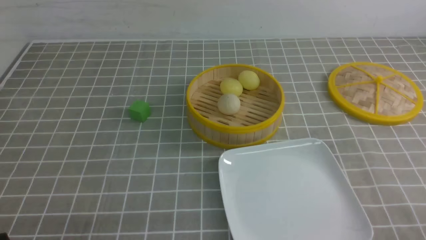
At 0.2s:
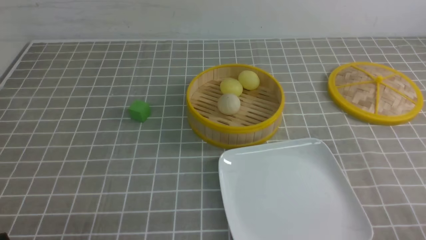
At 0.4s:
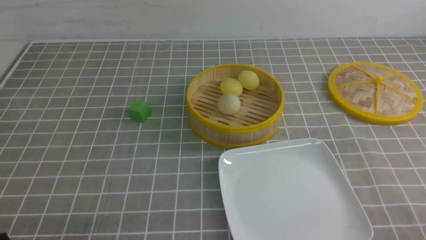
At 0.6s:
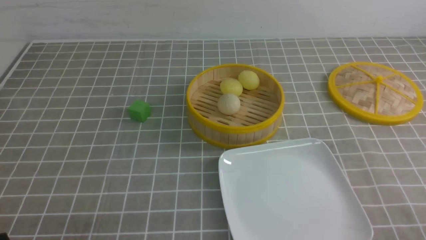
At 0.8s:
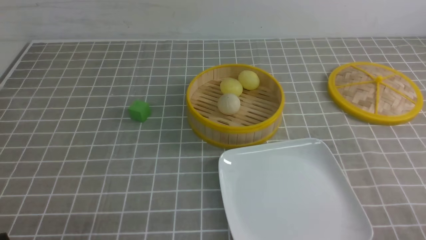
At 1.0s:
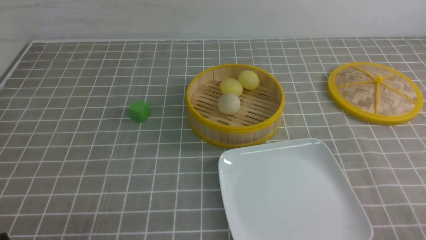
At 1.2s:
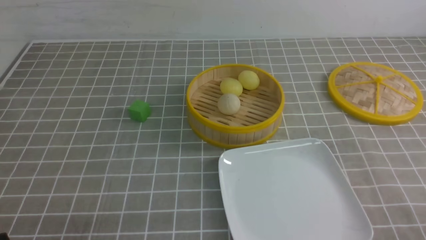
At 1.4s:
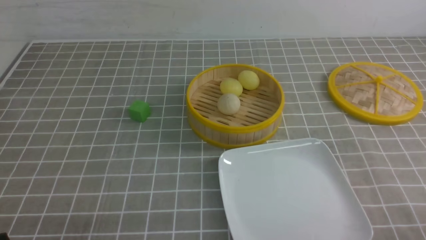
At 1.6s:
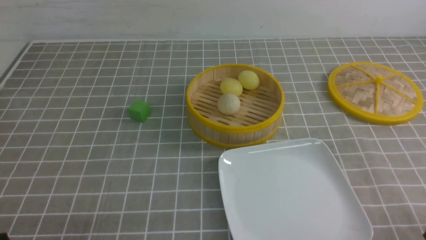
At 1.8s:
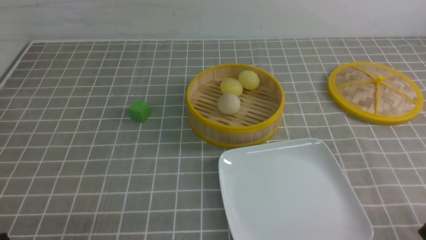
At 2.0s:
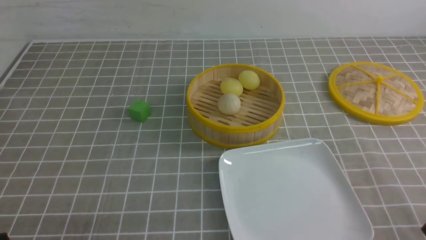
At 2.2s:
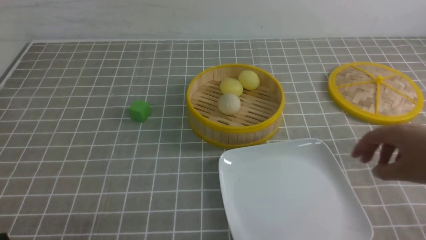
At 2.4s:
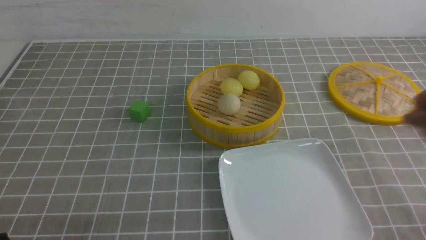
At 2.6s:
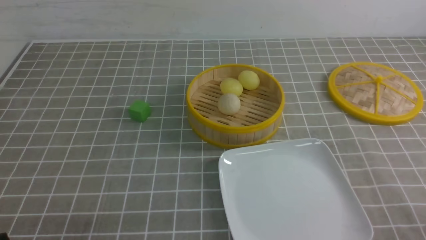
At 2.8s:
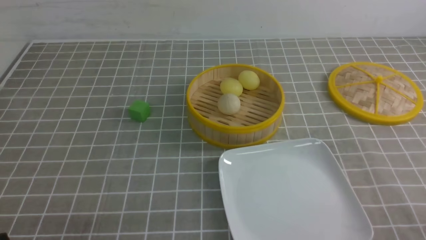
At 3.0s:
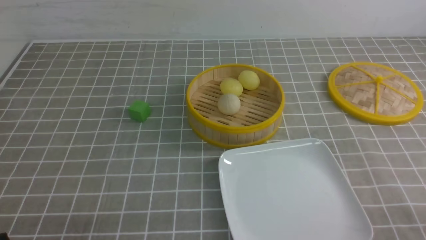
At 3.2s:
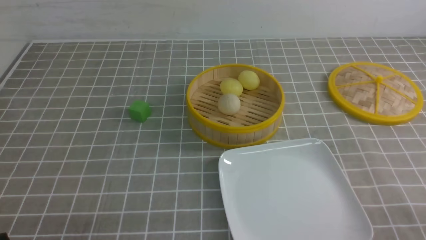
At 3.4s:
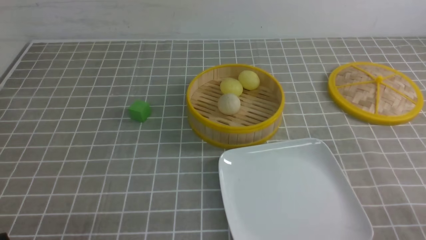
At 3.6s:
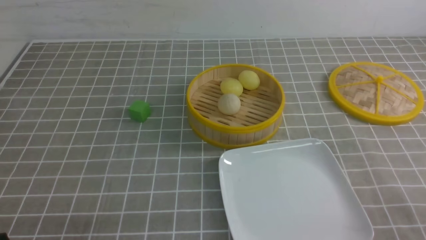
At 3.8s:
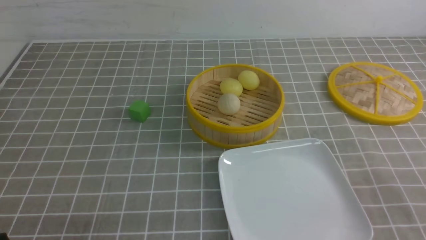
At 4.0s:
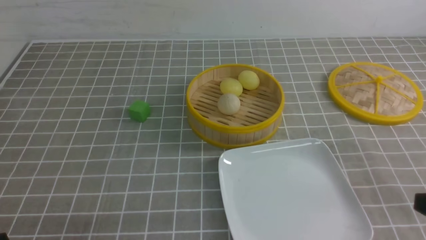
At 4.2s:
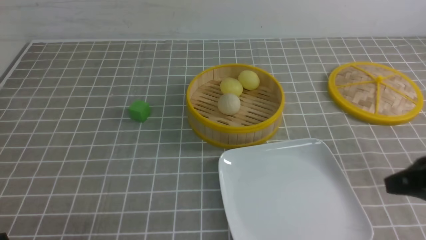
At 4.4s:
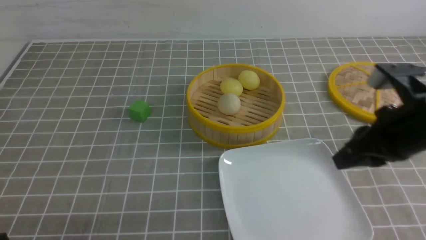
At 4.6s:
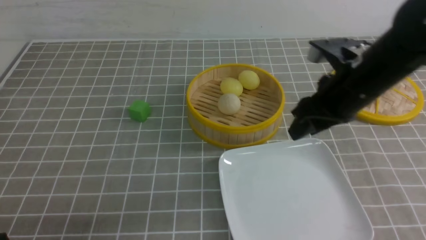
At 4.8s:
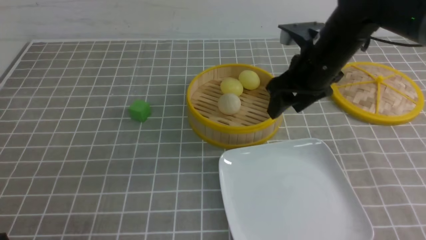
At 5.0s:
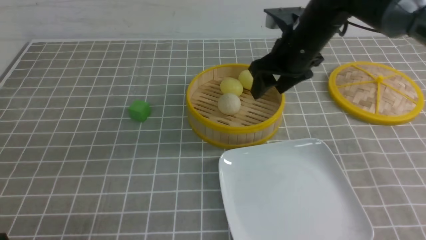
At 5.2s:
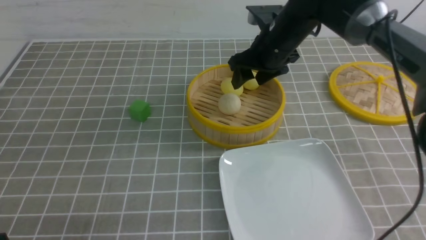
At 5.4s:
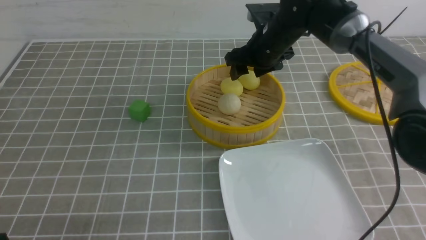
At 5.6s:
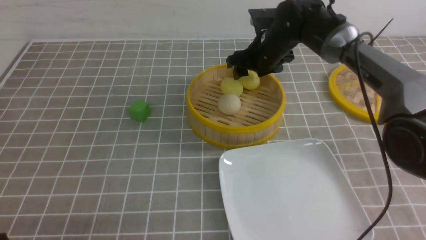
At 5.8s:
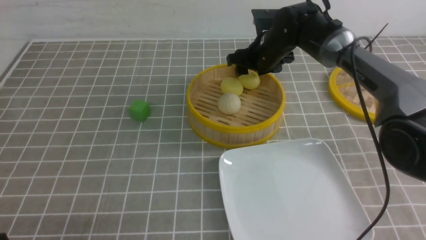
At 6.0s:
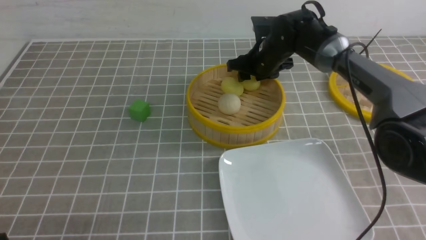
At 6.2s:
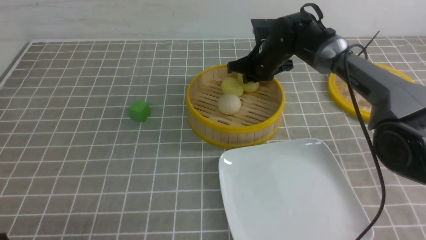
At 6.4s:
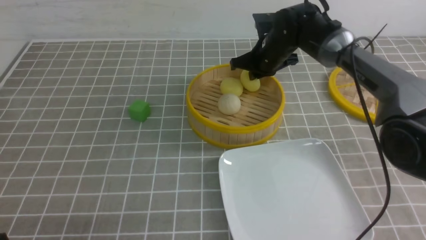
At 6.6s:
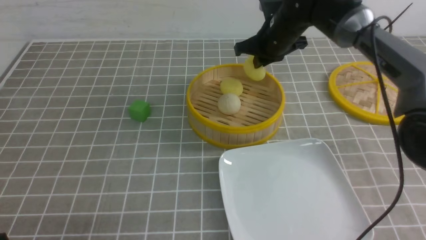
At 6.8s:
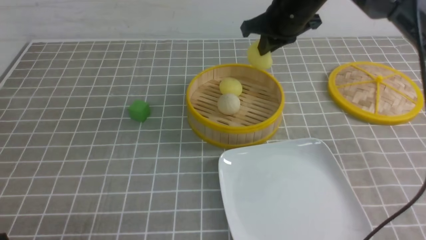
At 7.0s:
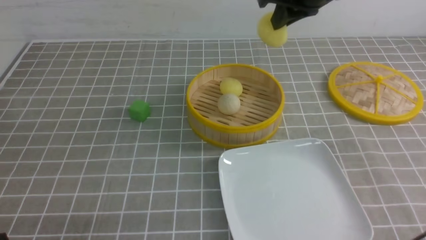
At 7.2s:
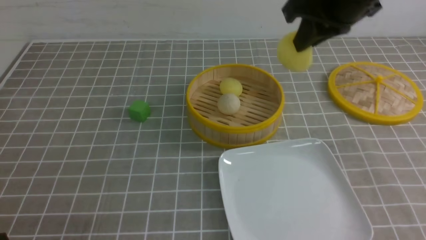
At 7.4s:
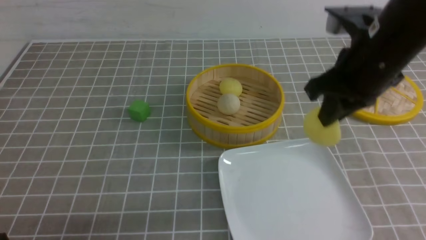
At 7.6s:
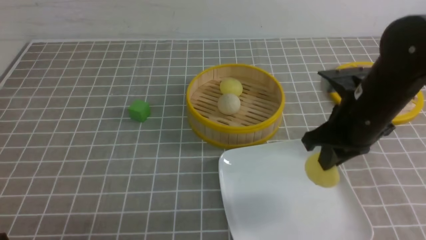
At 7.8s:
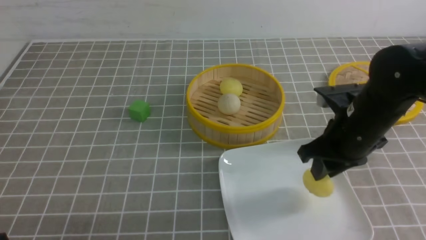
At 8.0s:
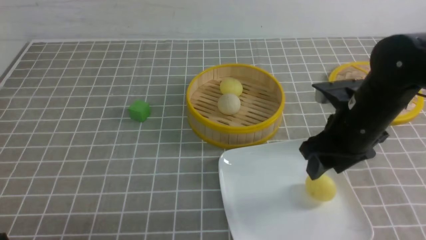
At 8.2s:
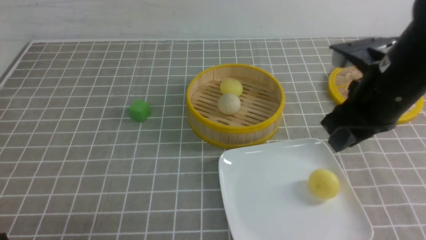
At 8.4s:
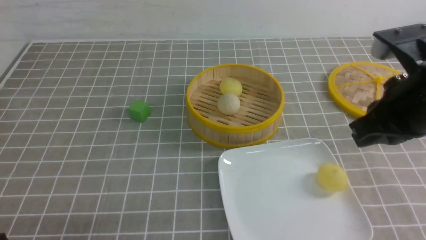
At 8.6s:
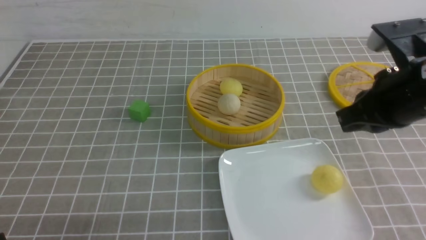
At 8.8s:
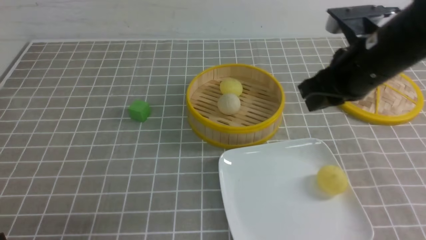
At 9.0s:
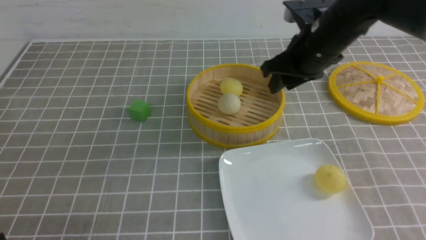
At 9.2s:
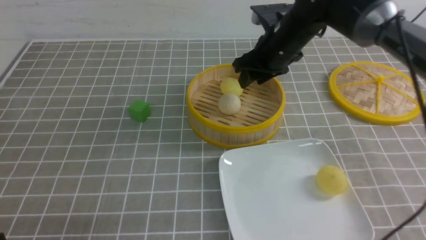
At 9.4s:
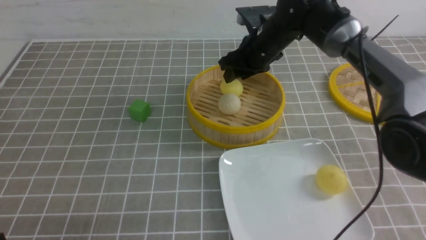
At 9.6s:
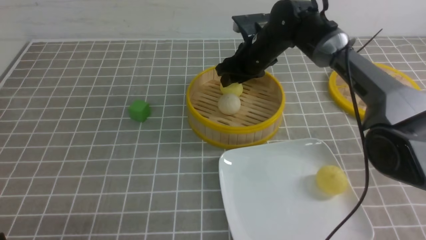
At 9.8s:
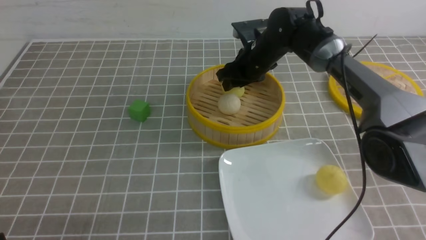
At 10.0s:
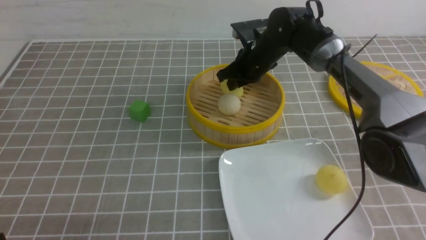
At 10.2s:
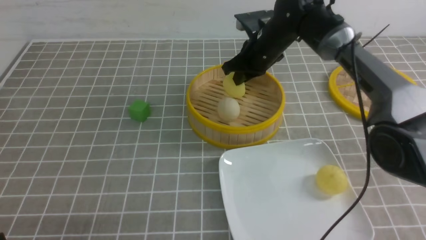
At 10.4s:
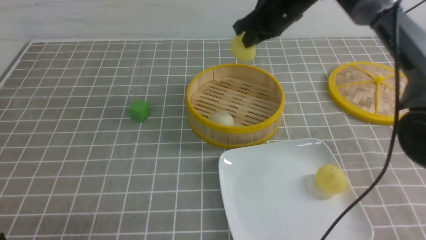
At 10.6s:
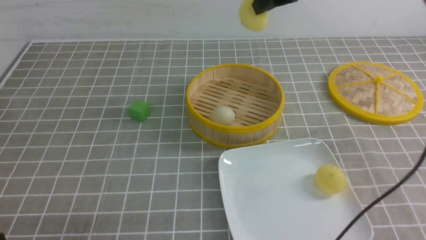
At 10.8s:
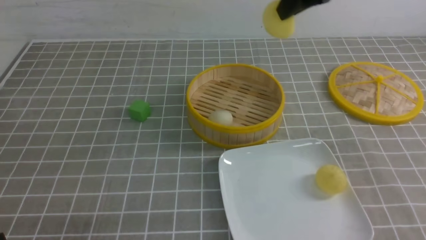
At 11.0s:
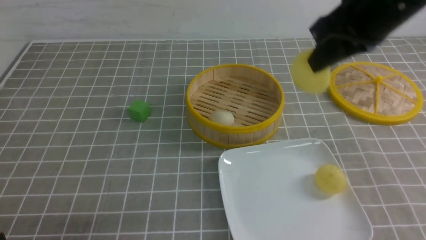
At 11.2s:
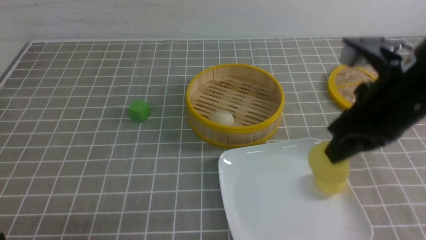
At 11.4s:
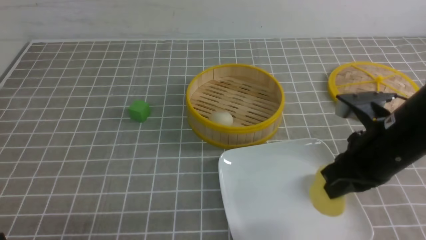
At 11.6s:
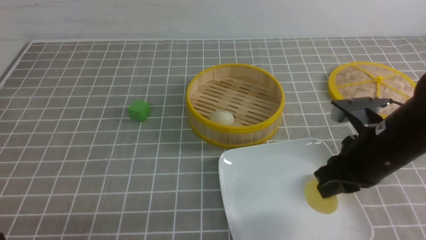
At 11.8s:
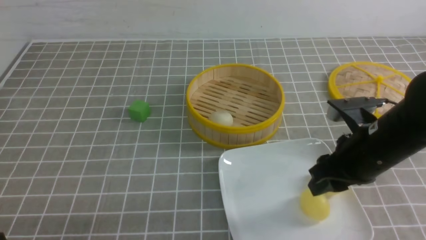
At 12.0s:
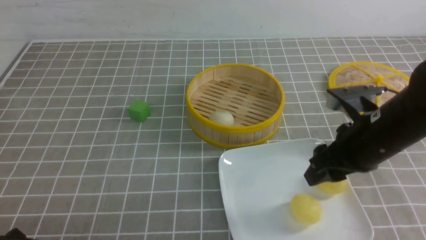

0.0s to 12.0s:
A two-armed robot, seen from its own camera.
Step, 0.0s to 6.4s: use the right arm to grab the steamed stuffed bun that is closest to it.
Step, 6.6s to 7.8s: use the right arm to put the steamed stuffed bun into the plate.
Step, 8.0s to 10.0s: use the right arm to grab the steamed stuffed bun that is closest to it.
Step, 10.2s to 11.8s: use the right arm to put the steamed stuffed bun into the plate.
3.0s to 4.4s: The right gripper heads forward, upward and to the left, covering about 25 cm, and opens its fingers.
4.4s to 6.0s: The right gripper travels forward and to the left by roughly 30 cm, and opens and closes again.
6.0s to 7.6s: The right gripper shifts approximately 20 cm backward, and closes up.
7.6s to 9.0s: The right gripper travels forward by approximately 10 cm.
9.0s to 10.4s: The right gripper travels forward by some 5 cm, reaches some 10 cm downward, then returns, and closes its fingers.
10.4s to 12.0s: The right gripper moves backward, some 20 cm, and opens up.

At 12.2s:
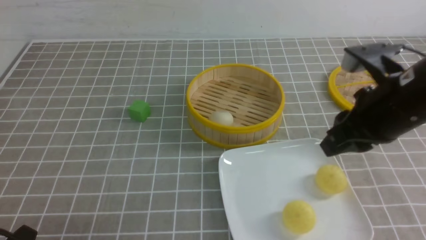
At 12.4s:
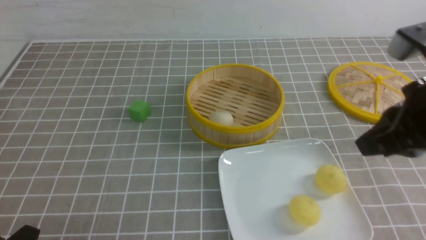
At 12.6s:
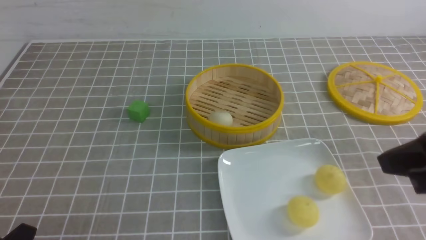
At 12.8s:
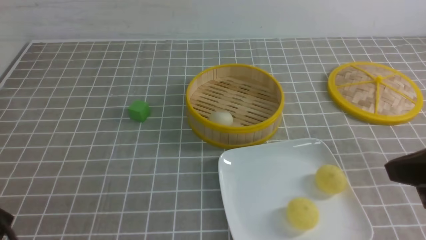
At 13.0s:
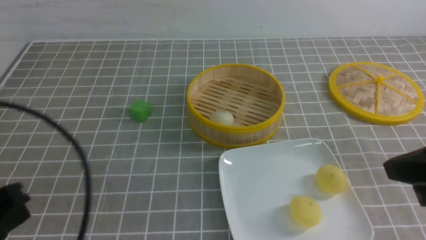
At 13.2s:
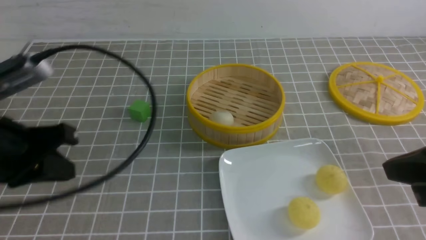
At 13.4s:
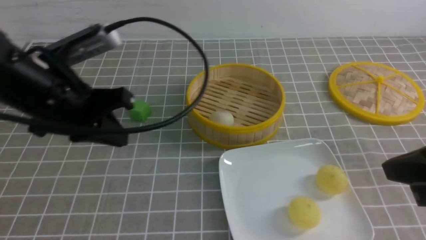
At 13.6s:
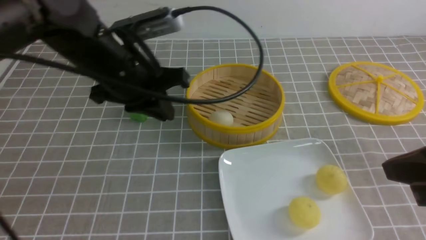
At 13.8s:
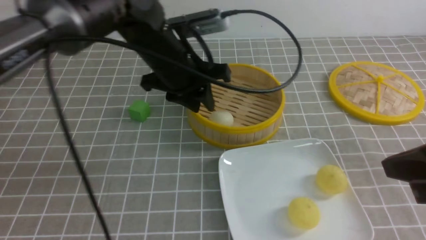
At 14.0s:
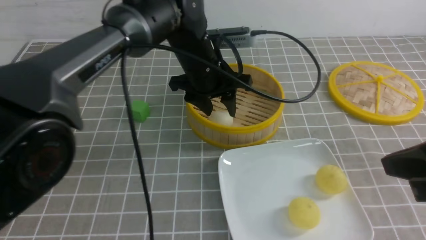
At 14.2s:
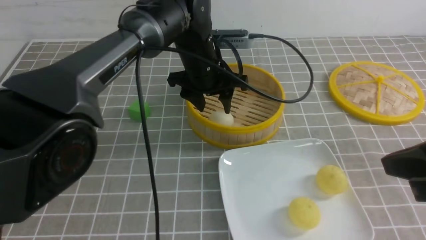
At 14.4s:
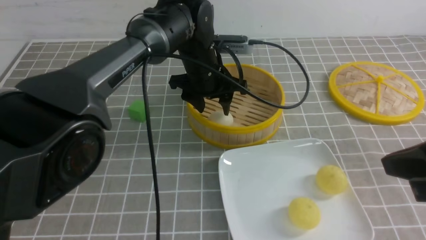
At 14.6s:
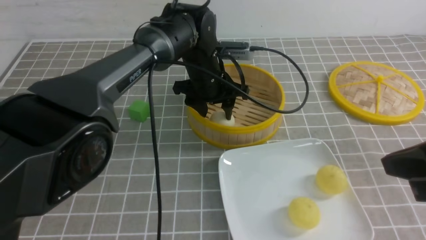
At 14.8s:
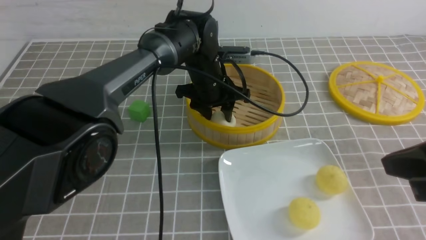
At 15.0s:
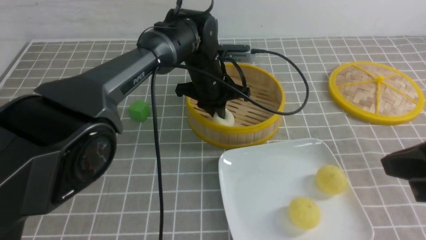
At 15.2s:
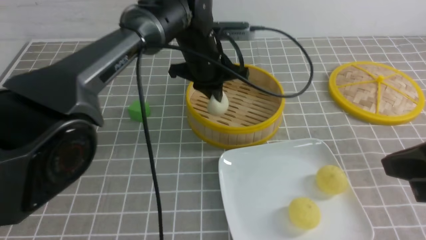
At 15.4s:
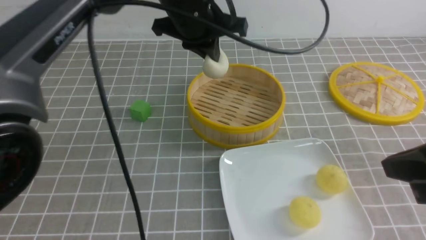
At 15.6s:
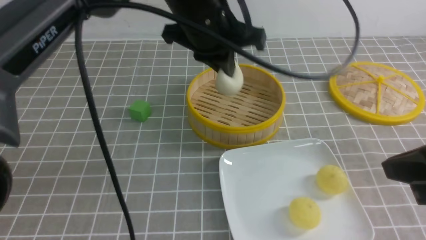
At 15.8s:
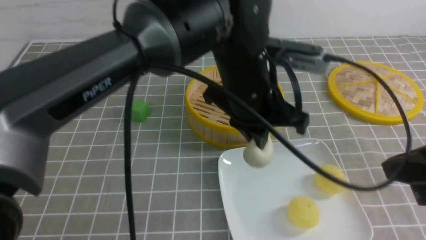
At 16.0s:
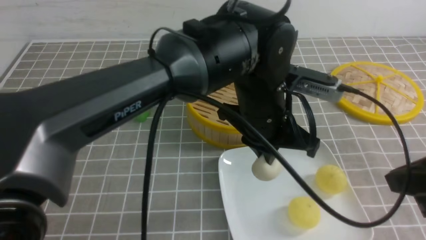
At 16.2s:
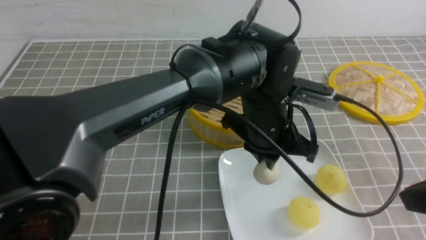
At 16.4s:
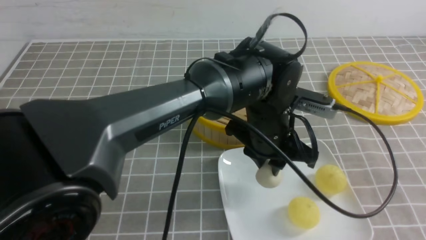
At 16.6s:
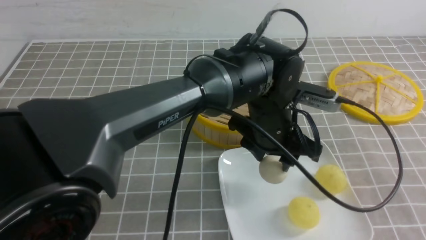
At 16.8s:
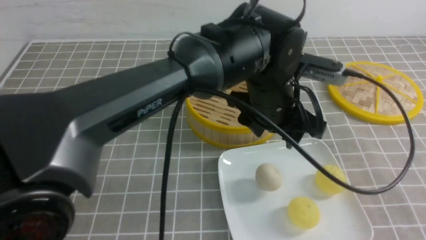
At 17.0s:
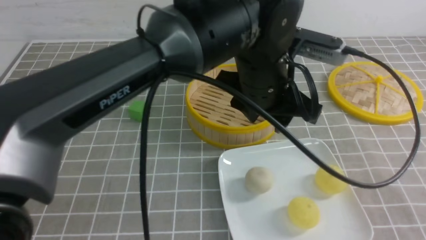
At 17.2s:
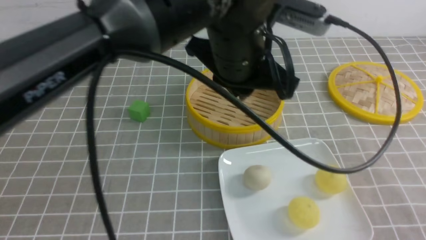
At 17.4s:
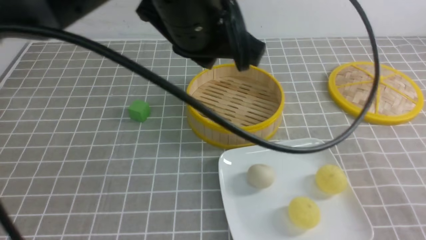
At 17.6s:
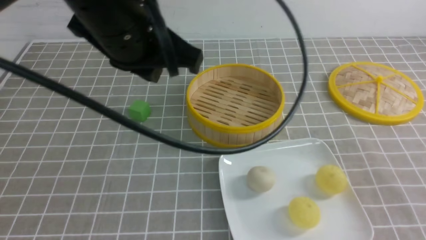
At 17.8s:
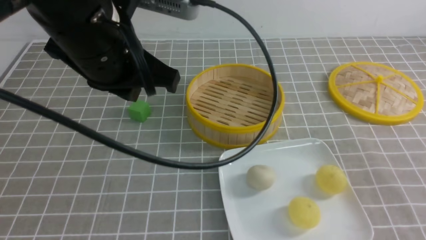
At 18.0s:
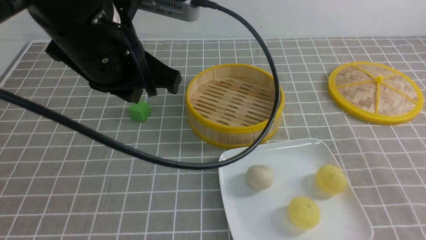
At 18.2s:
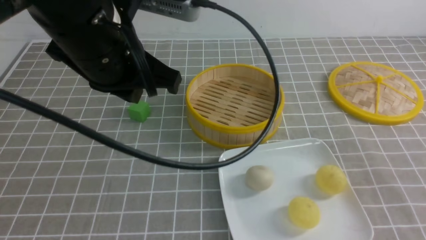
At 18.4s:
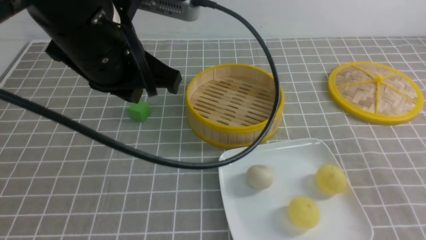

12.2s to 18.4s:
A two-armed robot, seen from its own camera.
Step, 12.2s to 15.0s: use the left arm to grab the steamed stuffed bun that is closest to it.
Step, 15.2s to 16.6s: use the left arm to put the steamed stuffed bun into the plate.
12.2s to 13.8s: The left gripper goes roughly 40 cm forward, to the right and upward, and closes, then opens again, while the right gripper heads backward, covering some 10 cm.
13.8s to 15.4s: The left gripper moves about 10 cm downward and comes back, and closes.
15.4s to 16.8s: The left gripper travels to the right, backward and downward by roughly 15 cm, and opens up. Meanwhile the right gripper is displaced backward and to the right by some 10 cm.
16.8s to 18.4s: The right gripper moves downward, approximately 5 cm, while the left gripper heads to the left and upward, covering some 20 cm, and closes its fingers.
